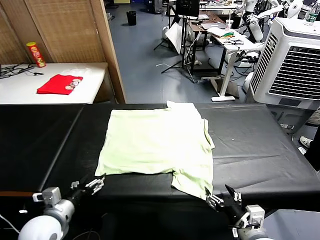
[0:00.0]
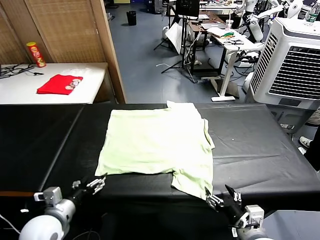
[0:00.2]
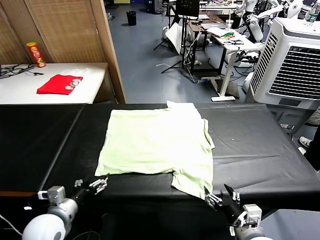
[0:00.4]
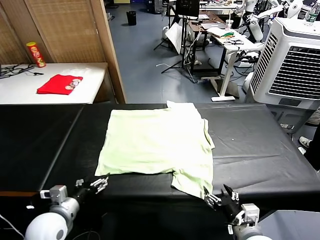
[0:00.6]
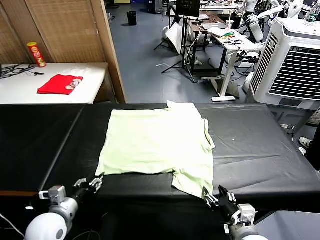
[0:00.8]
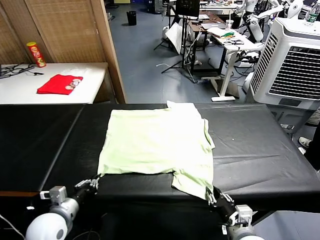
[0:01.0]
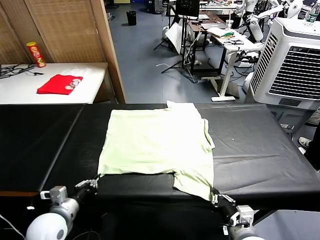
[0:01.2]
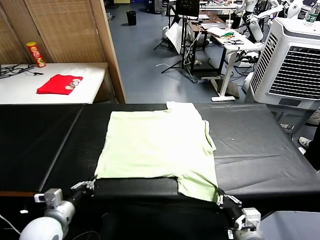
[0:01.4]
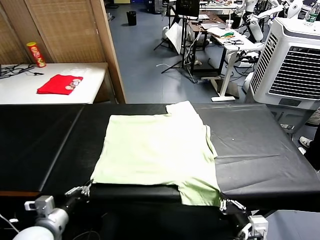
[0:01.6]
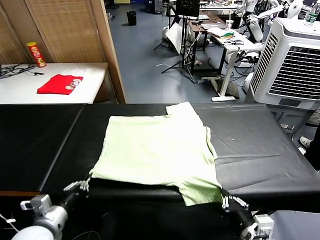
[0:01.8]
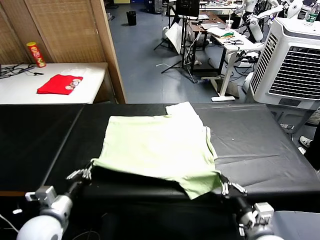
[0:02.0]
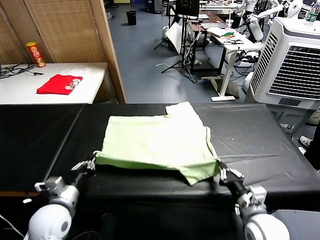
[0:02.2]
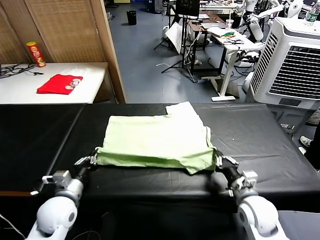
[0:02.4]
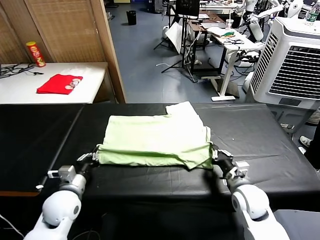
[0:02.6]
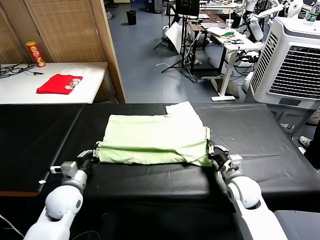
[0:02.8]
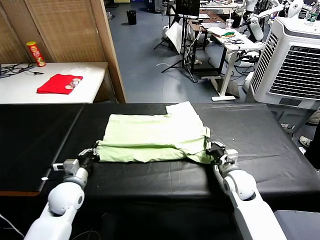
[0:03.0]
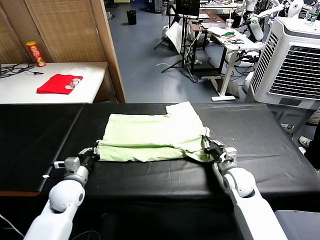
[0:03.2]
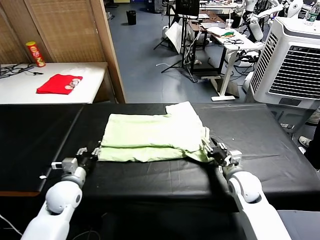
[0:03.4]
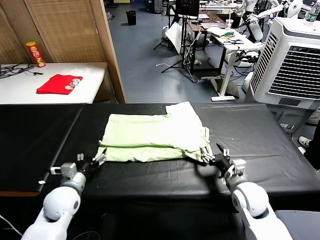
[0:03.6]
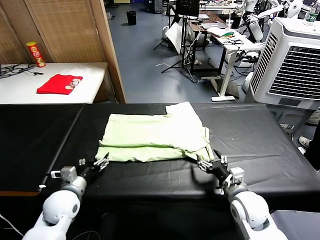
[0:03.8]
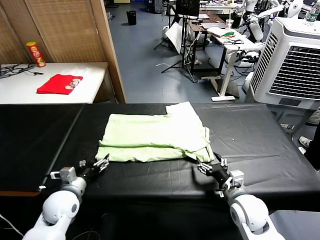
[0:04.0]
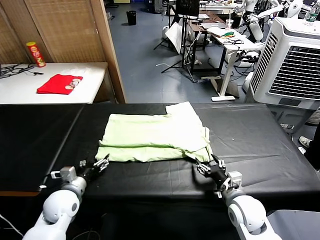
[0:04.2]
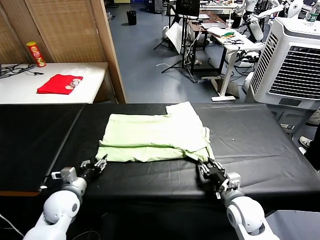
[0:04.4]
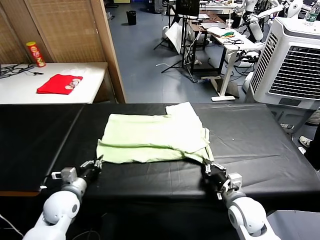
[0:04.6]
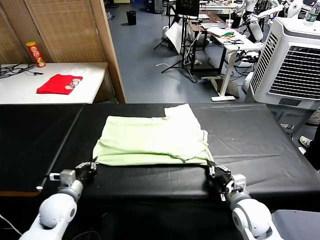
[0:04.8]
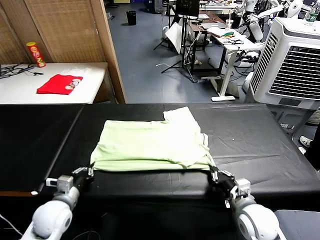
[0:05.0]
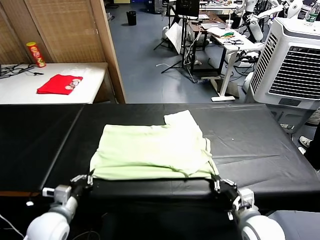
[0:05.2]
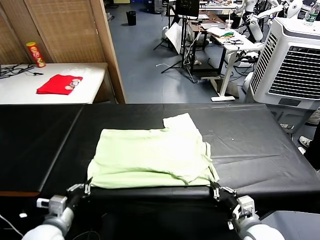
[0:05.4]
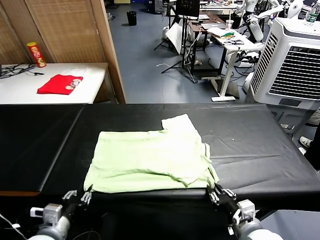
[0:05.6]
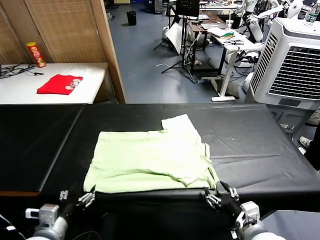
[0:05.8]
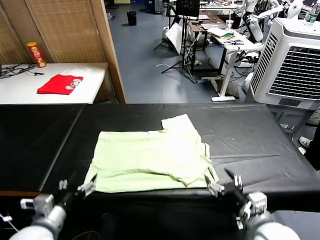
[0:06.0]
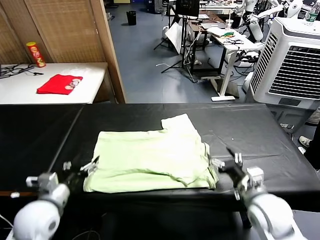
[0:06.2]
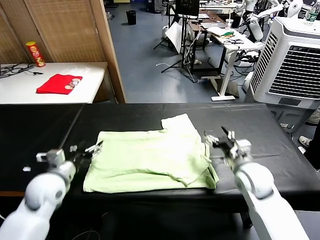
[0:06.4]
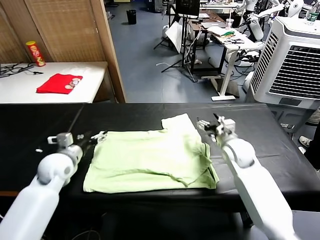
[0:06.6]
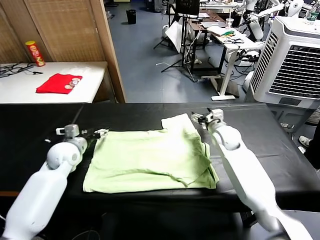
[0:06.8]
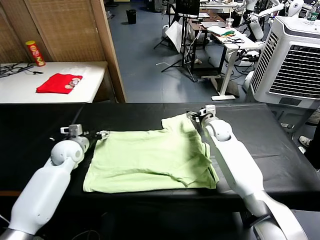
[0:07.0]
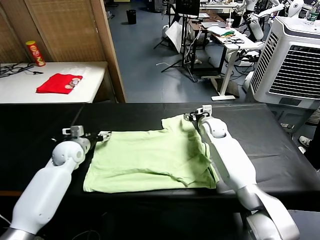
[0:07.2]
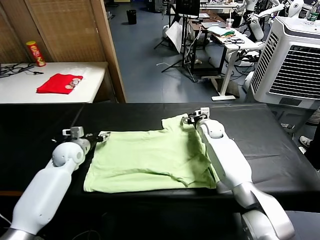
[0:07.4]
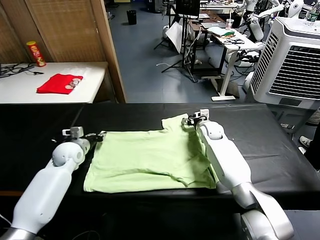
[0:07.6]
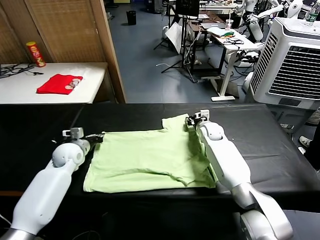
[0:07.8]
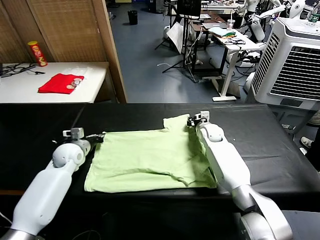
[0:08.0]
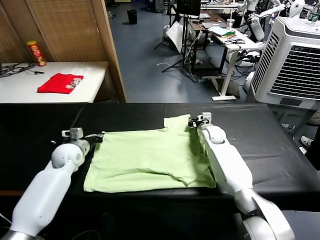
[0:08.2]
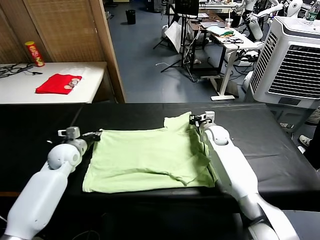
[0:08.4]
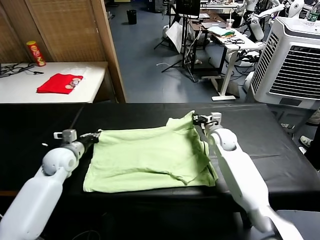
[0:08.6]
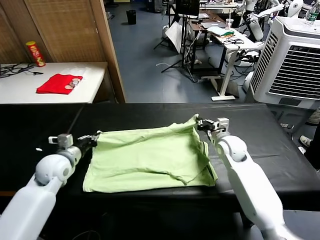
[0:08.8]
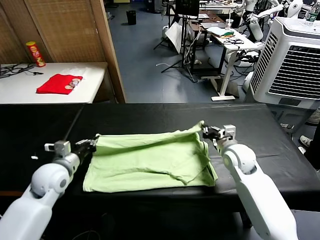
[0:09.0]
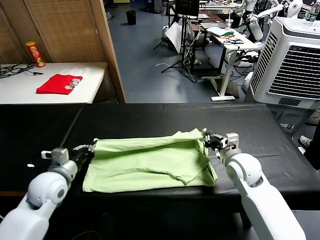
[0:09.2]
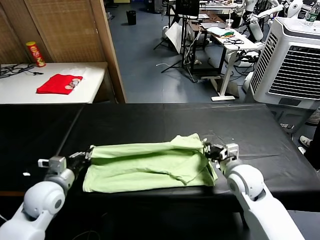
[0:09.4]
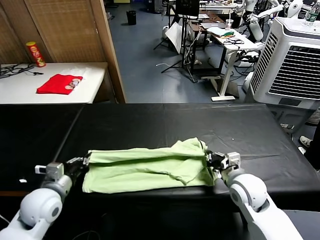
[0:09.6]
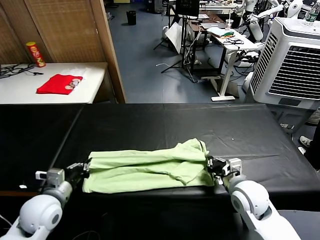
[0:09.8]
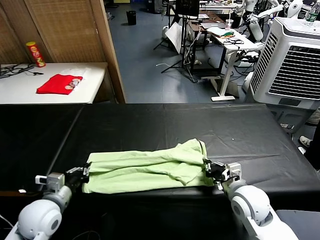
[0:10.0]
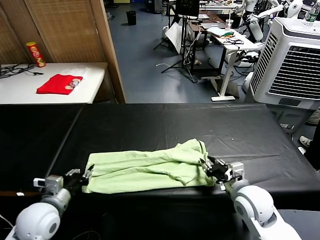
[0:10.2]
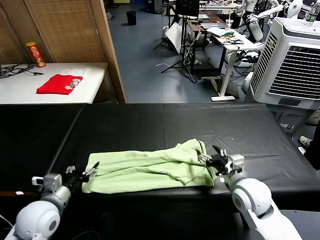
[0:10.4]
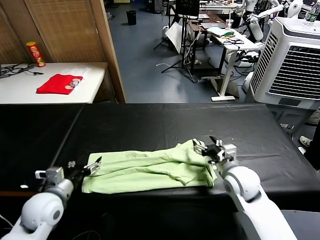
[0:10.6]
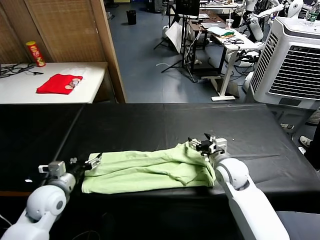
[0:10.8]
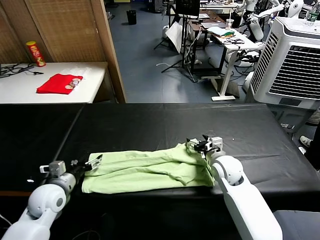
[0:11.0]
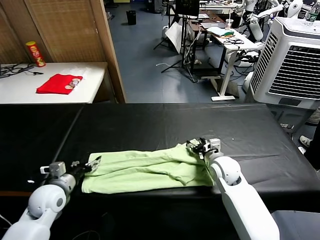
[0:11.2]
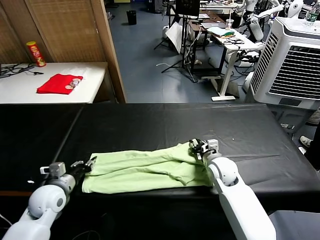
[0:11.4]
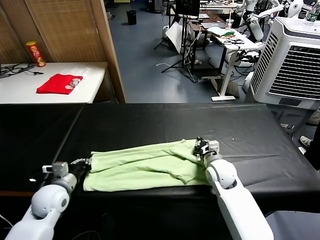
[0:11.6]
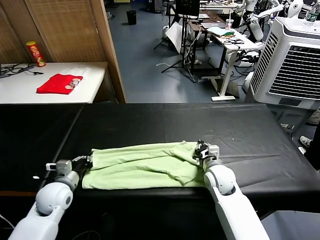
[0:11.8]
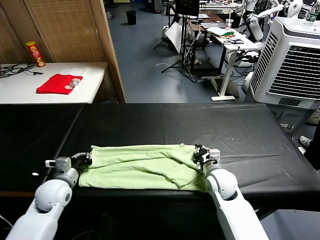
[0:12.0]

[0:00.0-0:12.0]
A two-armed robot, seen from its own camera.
Task of the whole recording: fold and organize the clothes.
Step, 0:00.0 to 0:01.2: use both grippers simultaneously to clamp the lower edge of the clothing fabric.
Step, 0:01.4 to 0:03.4: use both grippers to drag the lower edge of the fabric forward and fold it over the upper edge.
Step, 0:03.6 to 0:05.8: Drag the clothes downward with both gripper.
Step, 0:06.0 to 0:07.8: use both grippers simultaneously to clamp the upper edge of the clothing fabric.
Step, 0:08.0 to 0:10.4: use both grippers to drag the upper edge of the fabric backward and fold it over the lower edge.
0:01.6 to 0:03.0: The right gripper shifts some 25 cm forward, while the left gripper moves forward, approximately 15 cm.
0:03.0 to 0:04.4: The right gripper is displaced backward by approximately 10 cm, and opens, then closes again. Meanwhile the left gripper opens.
0:04.4 to 0:06.0: The left gripper heads backward and upward, covering about 15 cm, and opens. Meanwhile the right gripper shifts some 10 cm upward, moves roughly 10 cm backward and comes back, and opens.
0:06.0 to 0:07.6: The grippers both shift forward by some 30 cm. The right gripper closes, while the left gripper closes.
0:07.6 to 0:09.0: The left gripper goes some 10 cm backward; the right gripper heads backward, covering some 20 cm, and closes.
0:09.0 to 0:10.4: The left gripper goes approximately 10 cm backward, and opens, while the right gripper travels backward by roughly 5 cm, and opens.
0:10.4 to 0:12.0: The right gripper is displaced downward by roughly 5 cm, reaches approximately 10 cm forward, then returns, and closes its fingers; the left gripper goes some 10 cm forward, and closes.

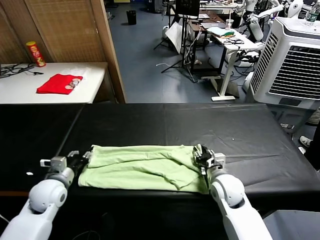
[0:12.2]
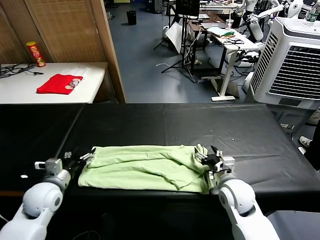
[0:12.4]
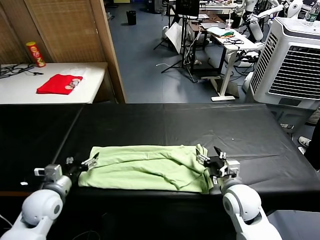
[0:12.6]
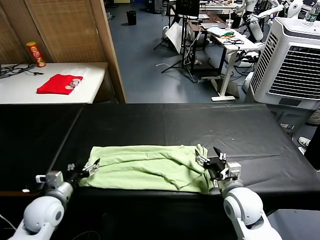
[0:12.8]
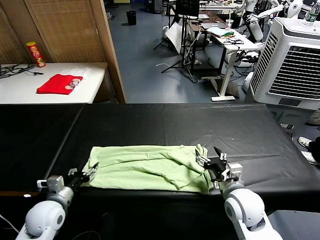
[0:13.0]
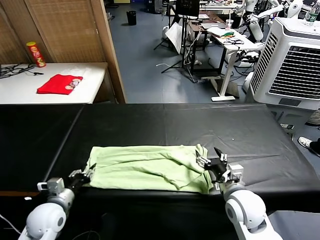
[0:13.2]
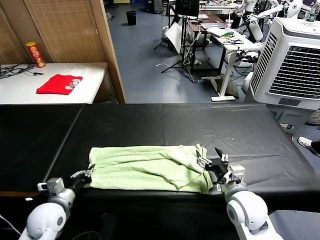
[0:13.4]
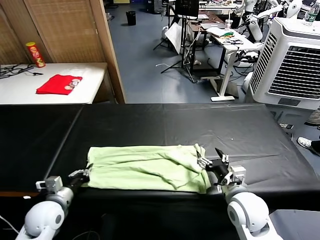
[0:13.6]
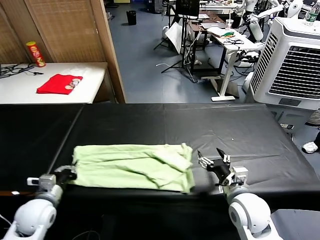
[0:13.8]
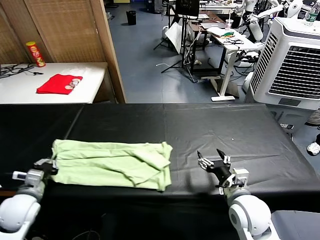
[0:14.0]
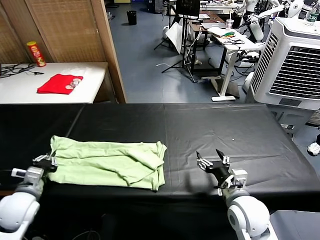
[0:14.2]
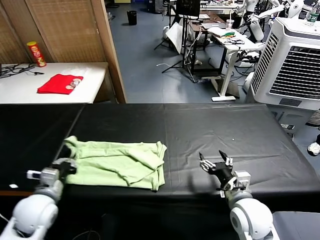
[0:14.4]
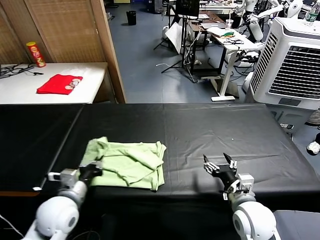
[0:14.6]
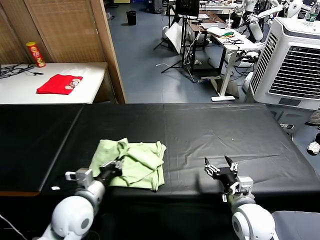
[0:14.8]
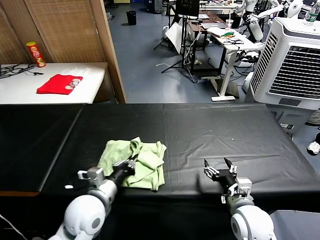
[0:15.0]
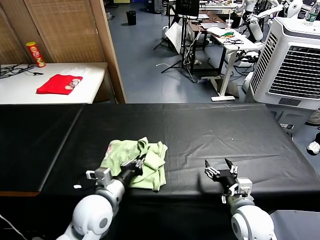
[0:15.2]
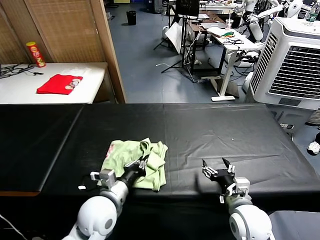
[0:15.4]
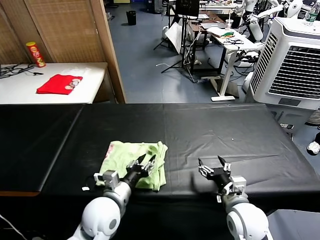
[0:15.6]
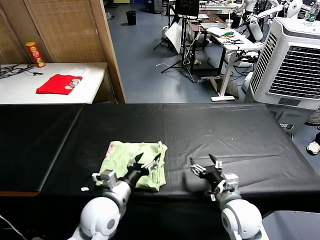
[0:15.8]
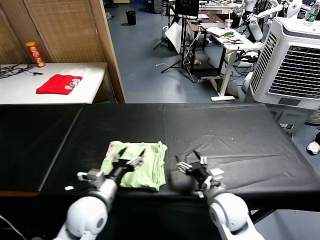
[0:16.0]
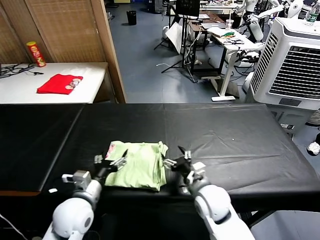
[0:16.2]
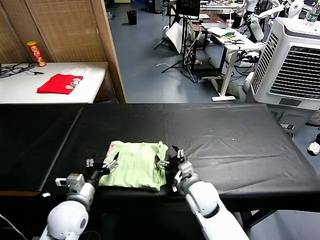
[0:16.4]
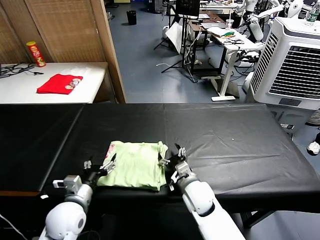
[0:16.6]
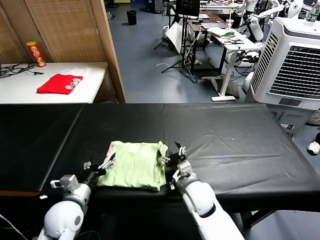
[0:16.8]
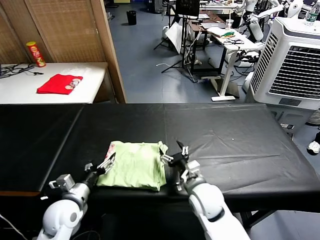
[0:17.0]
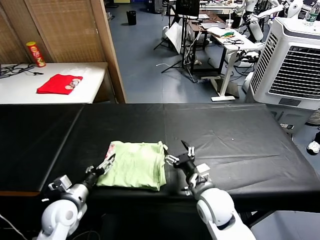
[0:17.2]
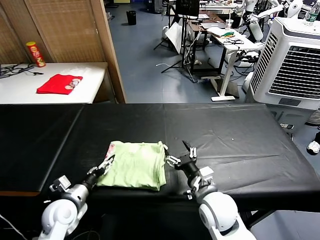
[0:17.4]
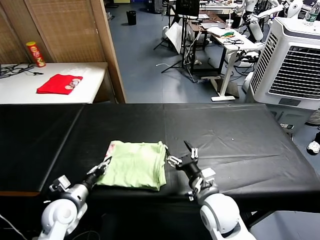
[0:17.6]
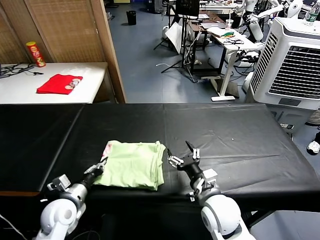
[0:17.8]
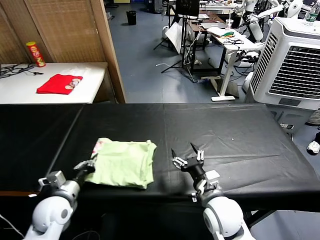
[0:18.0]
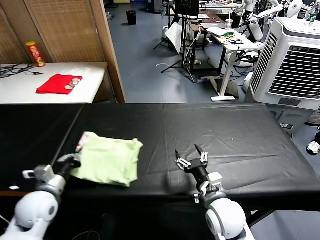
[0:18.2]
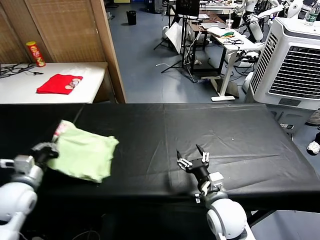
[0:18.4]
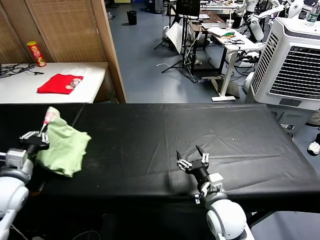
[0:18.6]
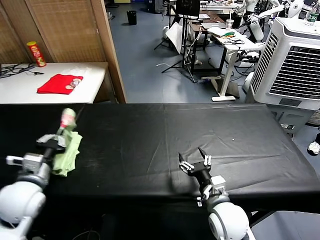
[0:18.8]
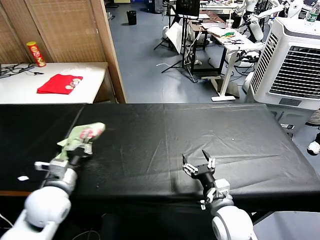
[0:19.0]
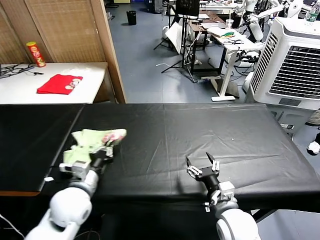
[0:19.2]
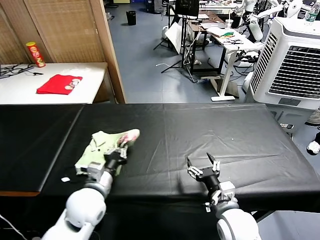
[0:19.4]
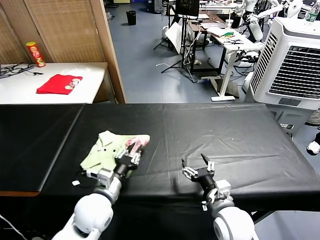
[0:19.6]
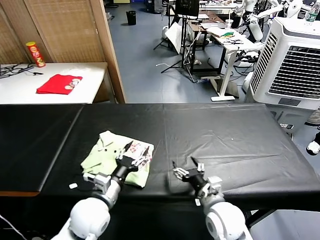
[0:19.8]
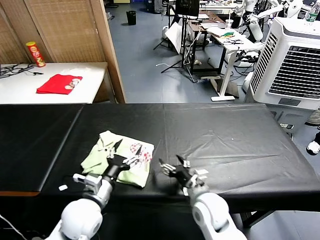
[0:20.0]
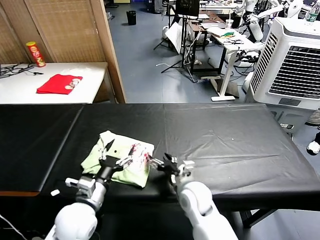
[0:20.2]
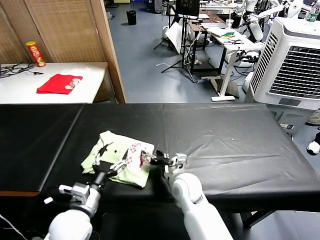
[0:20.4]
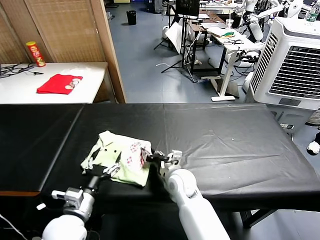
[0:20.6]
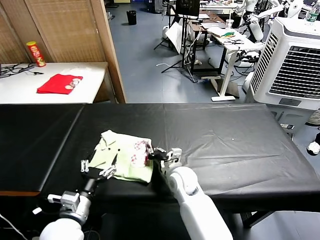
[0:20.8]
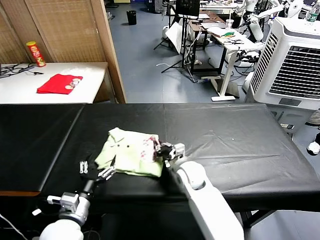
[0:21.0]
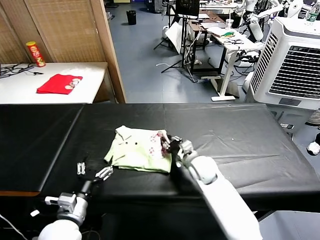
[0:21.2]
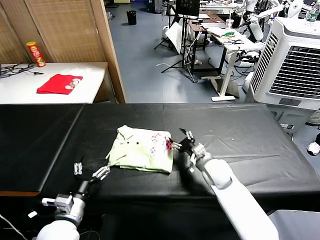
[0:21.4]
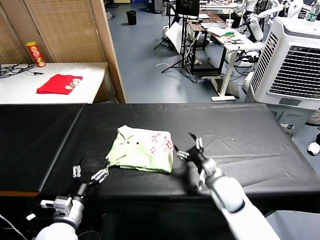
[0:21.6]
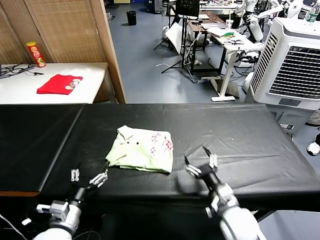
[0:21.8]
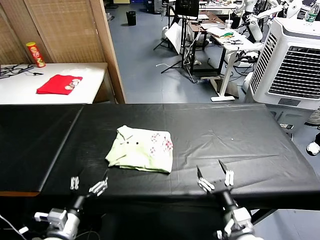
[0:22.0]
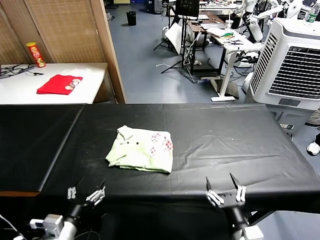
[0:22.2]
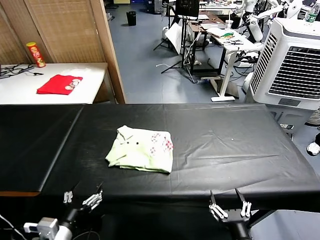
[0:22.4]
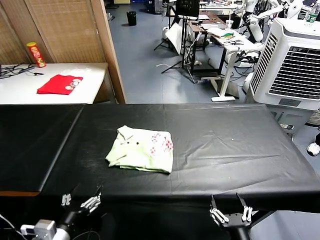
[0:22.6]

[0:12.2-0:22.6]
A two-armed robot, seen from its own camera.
Task of the whole recording: fold and organize the clothes.
Step, 0:13.6 to 0:15.8: use the left gripper to drag the left edge of the fabric to the left and folds it over the right edge.
Step, 0:16.0 to 0:19.6: Flip the folded clothes over with left gripper.
Step, 0:19.8 to 0:21.2: Drag the clothes to the center of the table.
0:12.2 to 0:13.6: Both grippers move backward, some 5 cm. The left gripper closes its fingers.
0:13.6 to 0:15.2: The left gripper heads to the right, covering some 15 cm.
0:15.2 to 0:16.6: The right gripper goes about 15 cm to the left and forward. The left gripper goes roughly 10 cm to the left, and opens.
0:16.6 to 0:18.2: The left gripper heads to the left, covering approximately 10 cm, and closes up, while the right gripper is displaced backward, to the right and upward by some 10 cm.
0:18.2 to 0:19.6: The left gripper heads to the right, covering about 15 cm.
0:19.6 to 0:21.2: The left gripper shifts about 10 cm to the left and backward, and opens its fingers. The right gripper goes about 20 cm forward, and closes.
0:21.2 to 0:22.6: The left gripper travels backward by roughly 10 cm. Meanwhile the right gripper travels backward by some 35 cm, and opens.
